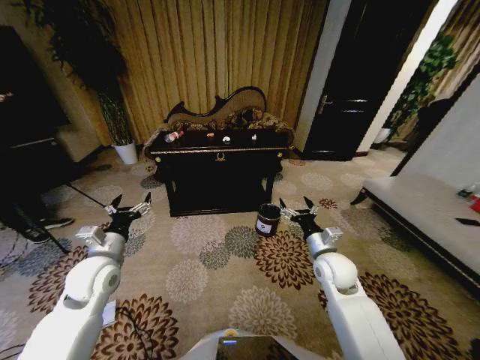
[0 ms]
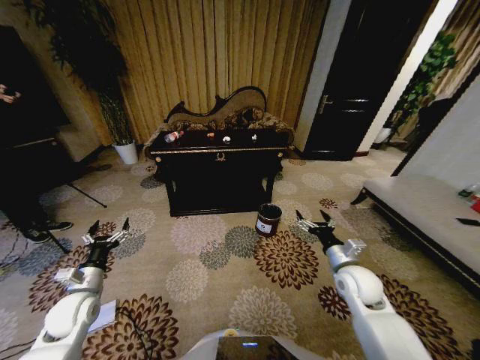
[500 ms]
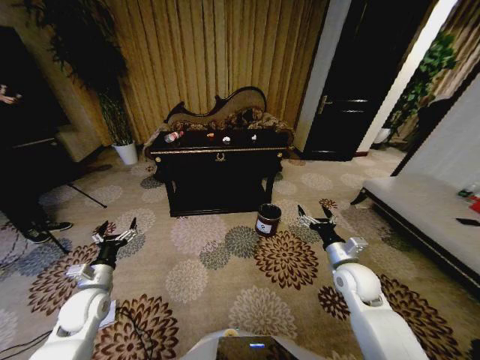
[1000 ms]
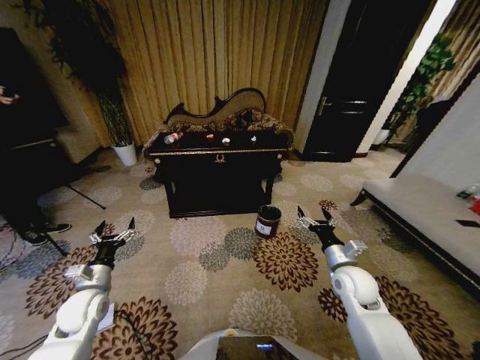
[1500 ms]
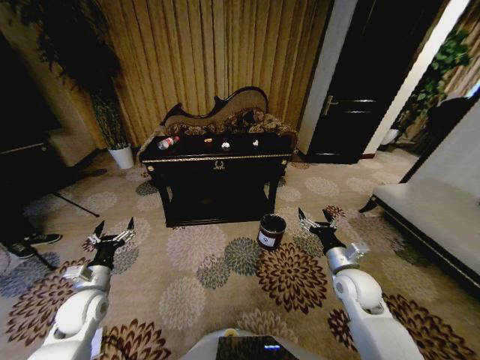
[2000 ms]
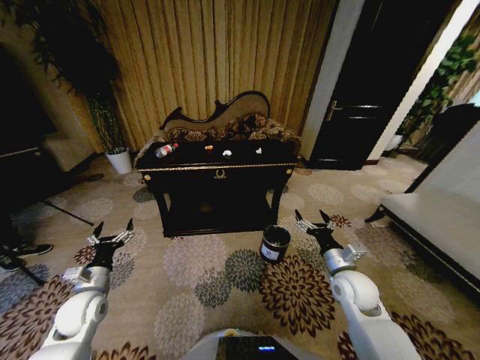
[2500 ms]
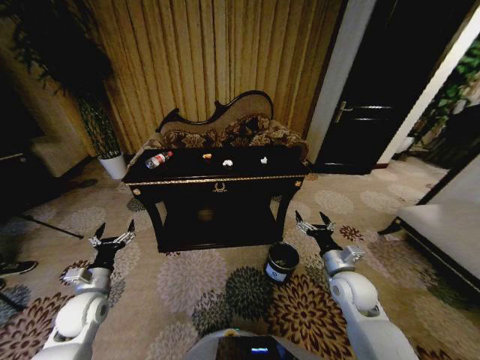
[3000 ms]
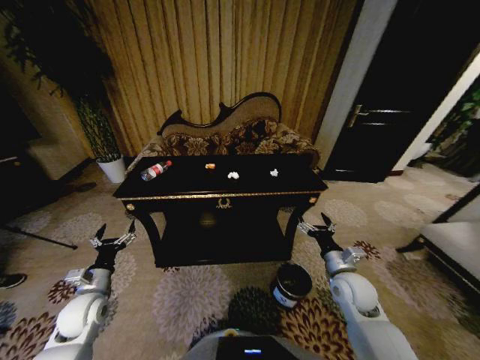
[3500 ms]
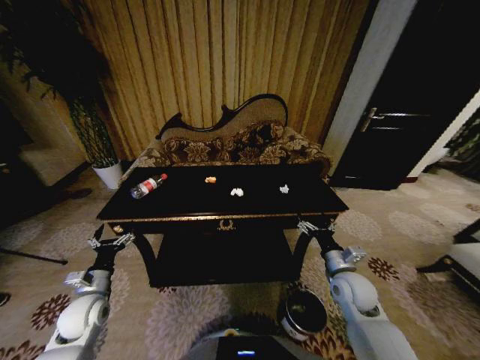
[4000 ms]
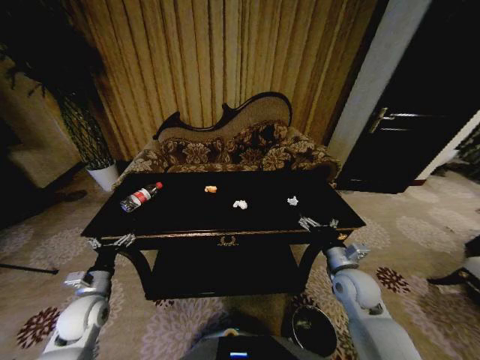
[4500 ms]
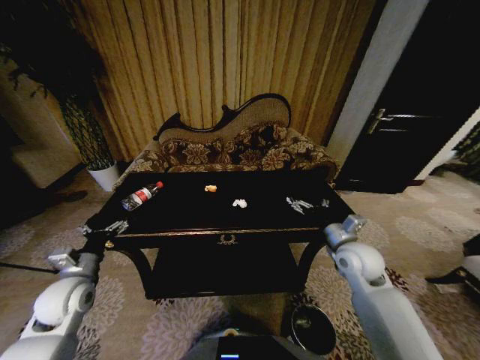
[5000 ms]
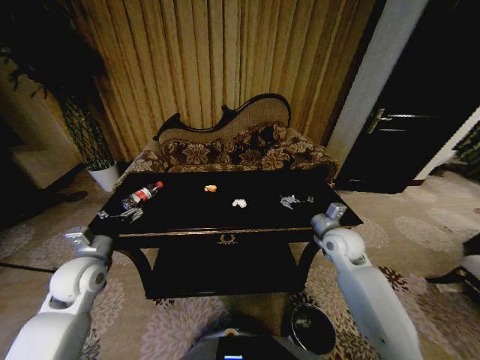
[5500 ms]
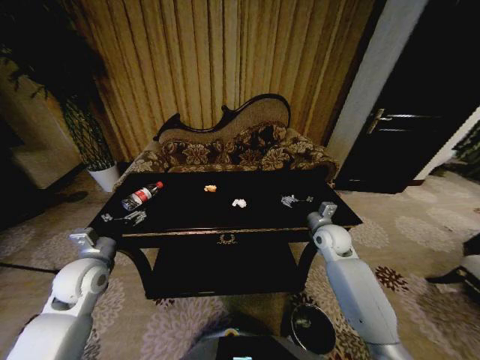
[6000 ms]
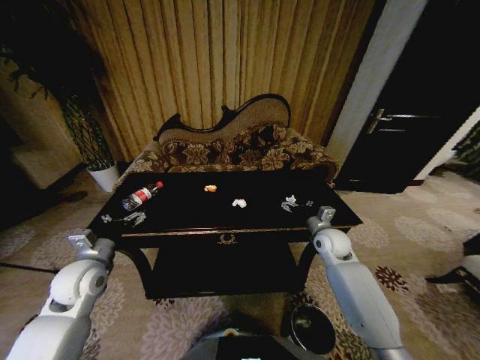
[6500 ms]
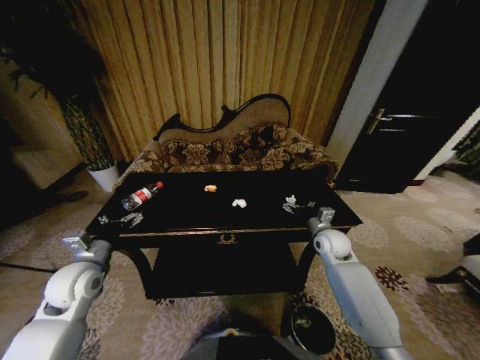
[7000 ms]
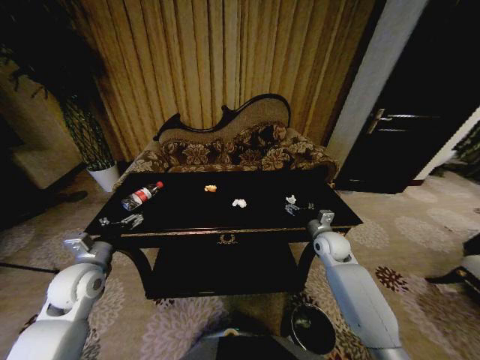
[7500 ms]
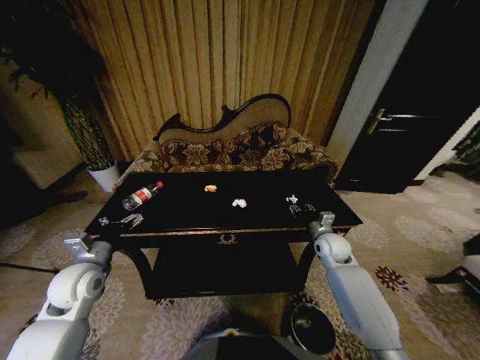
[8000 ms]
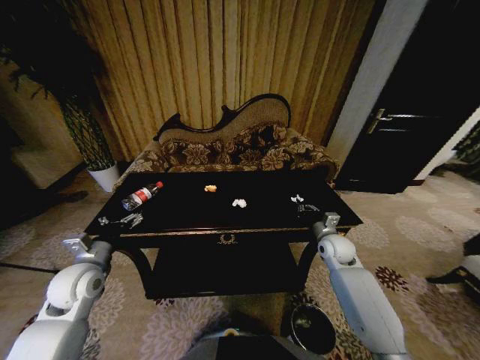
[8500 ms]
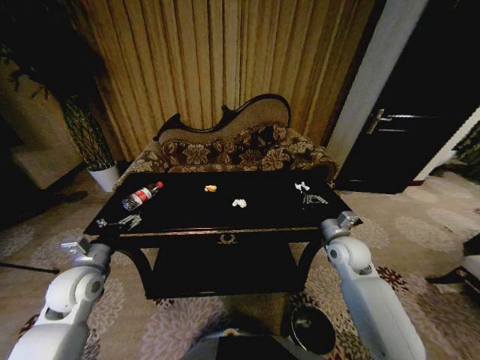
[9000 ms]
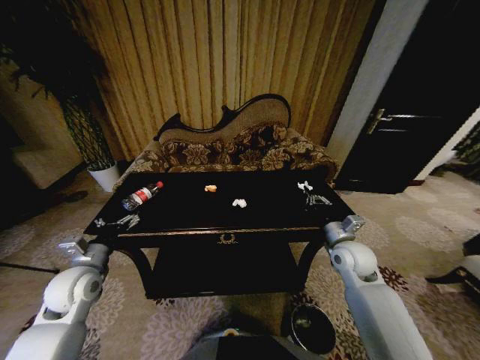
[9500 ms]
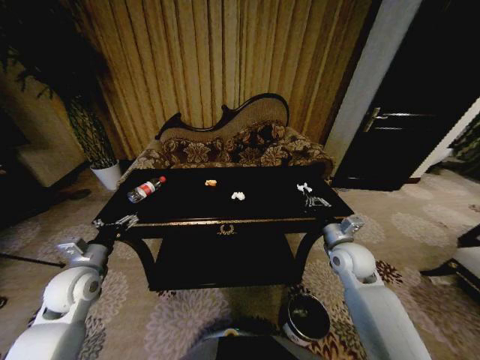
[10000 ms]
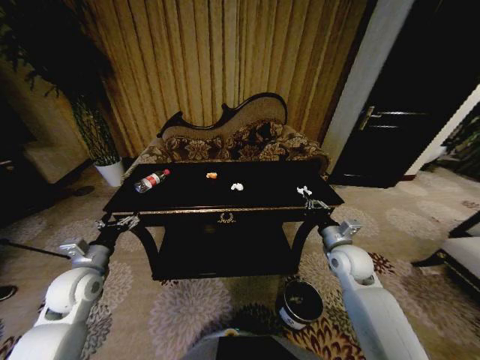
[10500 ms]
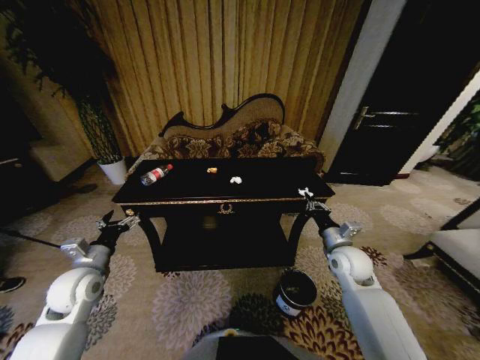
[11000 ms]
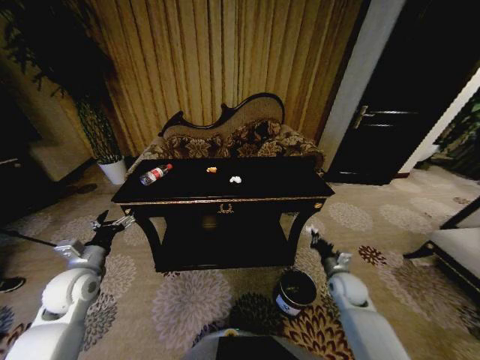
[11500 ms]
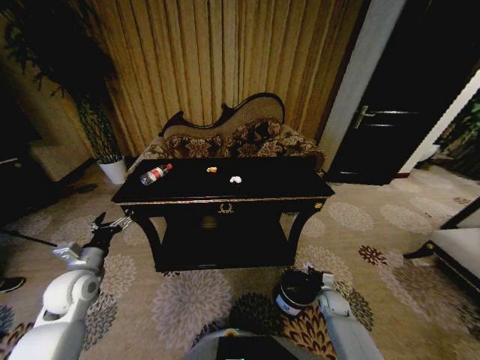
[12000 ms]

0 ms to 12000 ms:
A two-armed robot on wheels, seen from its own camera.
Task of the whole recording: Move to the front of the table and place the trash on the table into the trash bin.
4000 ms to 6000 ms: The right gripper travels forward by some 15 cm, while the left gripper is displaced upward and forward by some 10 cm.
6000 ms to 8000 ms: The right gripper closes its fingers.
8000 ms to 10000 ms: The right gripper travels backward and upward by about 10 cm, and closes.
10000 ms to 12000 ms: The right gripper moves downward, about 30 cm.

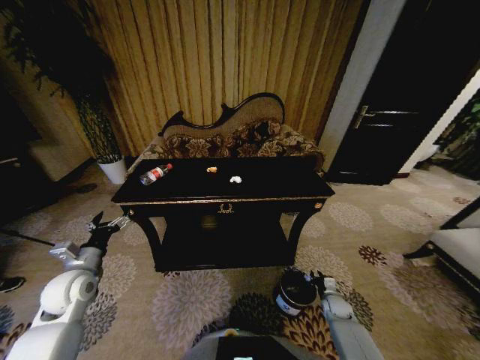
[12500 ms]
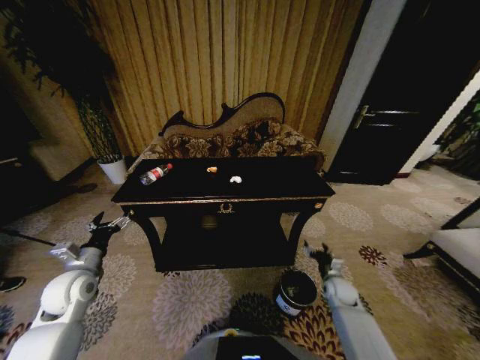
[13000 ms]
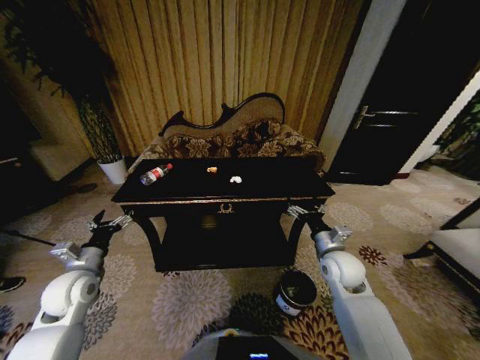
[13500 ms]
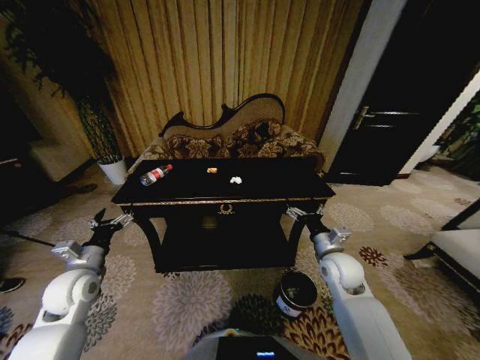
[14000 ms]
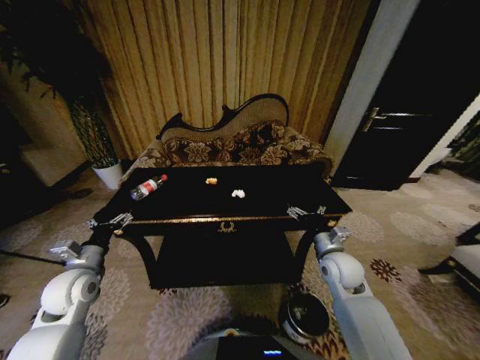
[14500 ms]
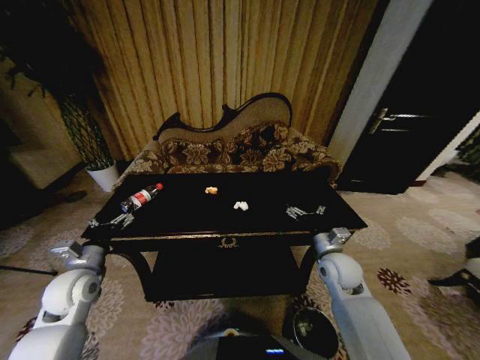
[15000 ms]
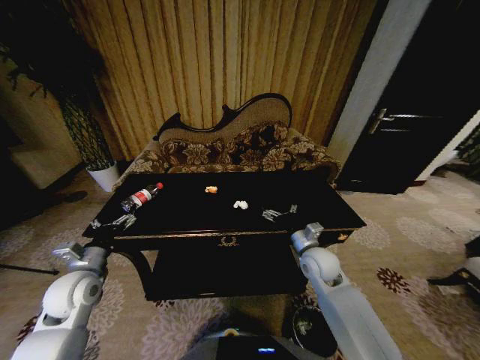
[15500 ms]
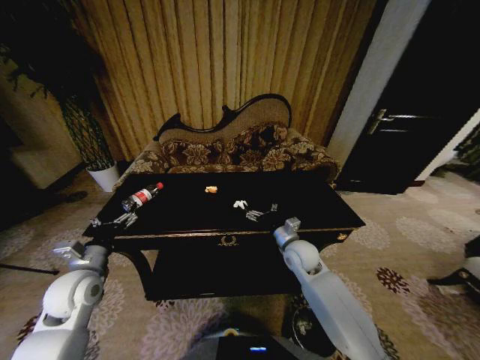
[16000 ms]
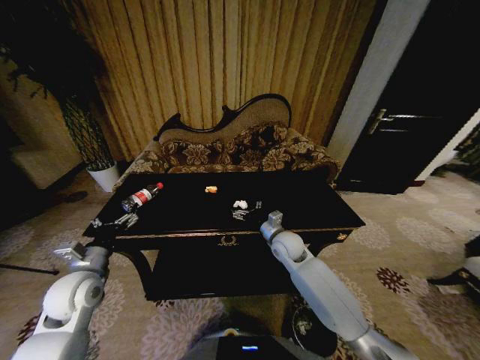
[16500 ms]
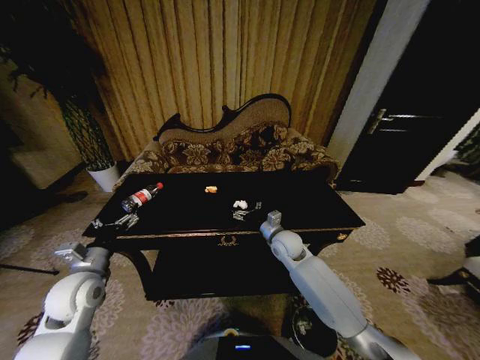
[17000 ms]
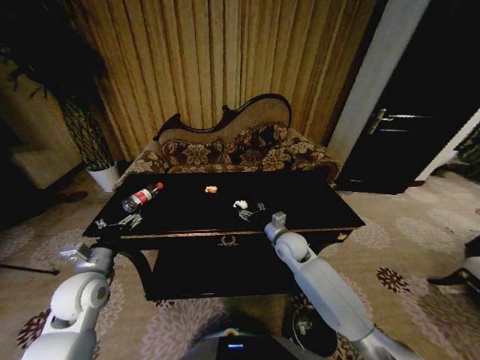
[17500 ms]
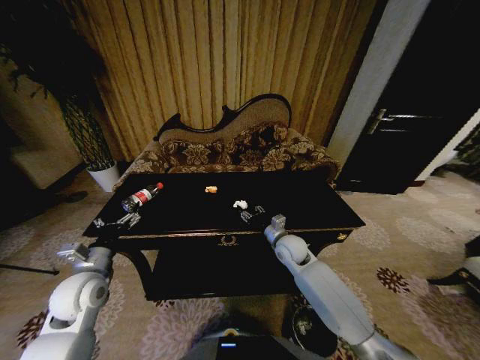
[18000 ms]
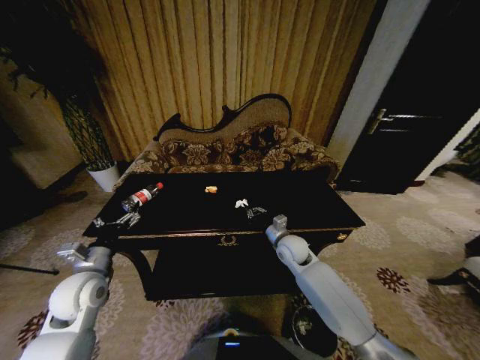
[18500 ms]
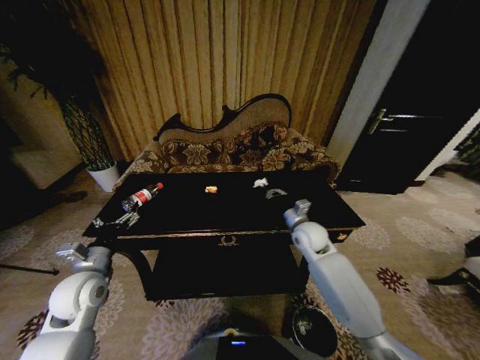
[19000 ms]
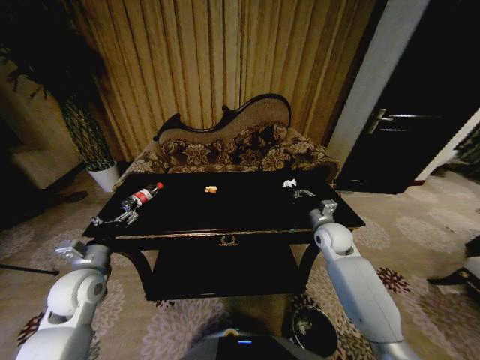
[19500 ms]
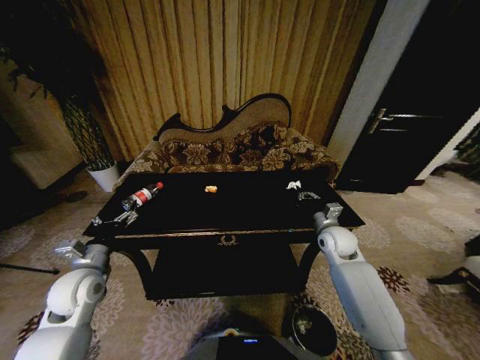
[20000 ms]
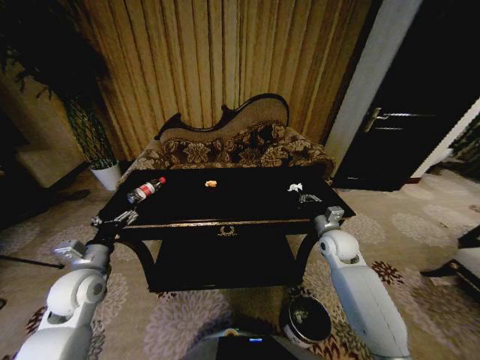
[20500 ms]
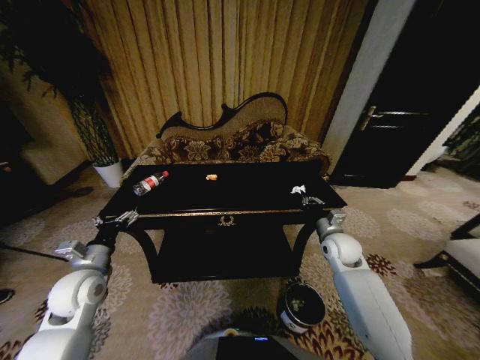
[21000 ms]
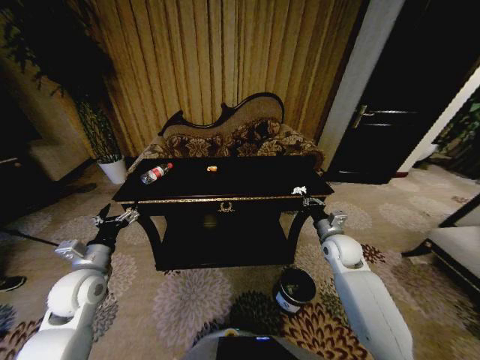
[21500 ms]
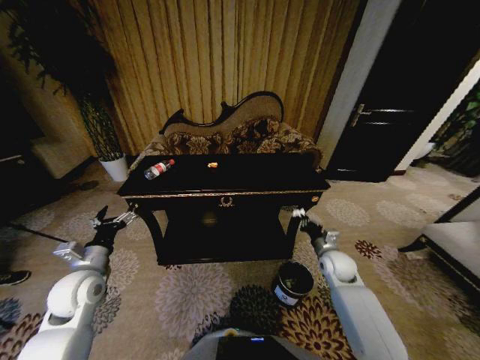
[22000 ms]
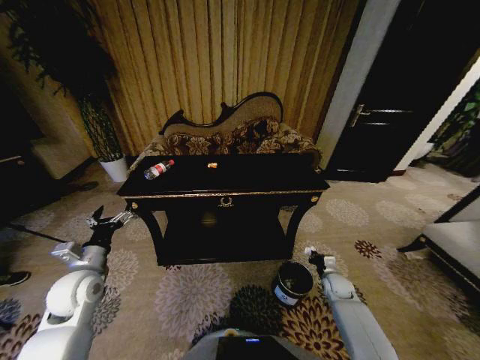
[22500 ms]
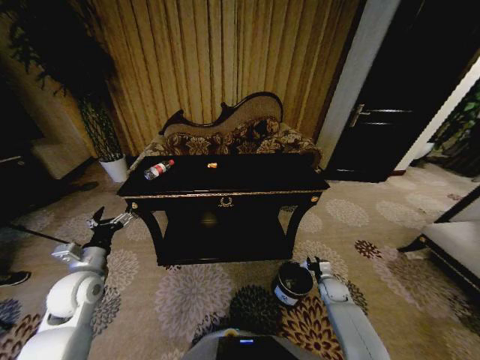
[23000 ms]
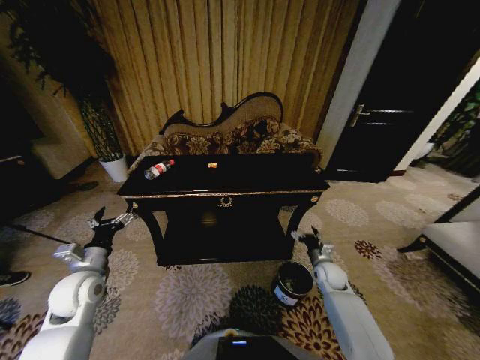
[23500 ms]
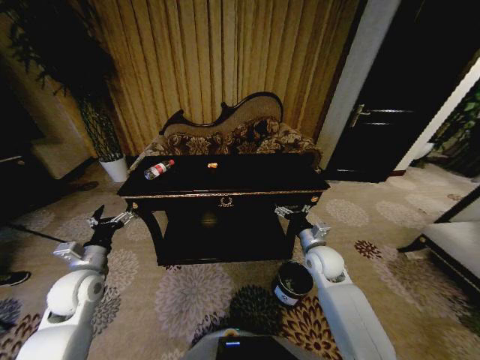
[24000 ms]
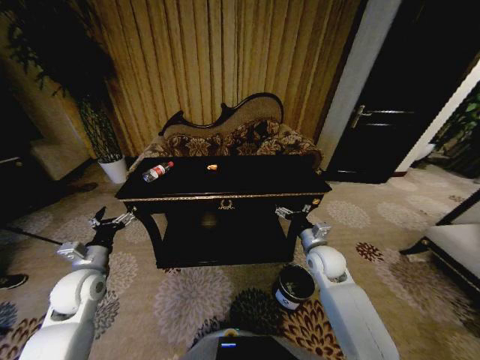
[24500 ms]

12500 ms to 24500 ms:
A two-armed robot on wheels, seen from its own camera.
Task of the whole recording: Move to the front of the table and place the trash on the table into the trash bin.
12500 ms to 14500 ms: The right gripper shifts approximately 30 cm upward, and opens up.
14500 ms to 16500 ms: The right gripper moves to the left and forward, some 15 cm.
16500 ms to 18500 ms: The right gripper closes.
18500 ms to 20500 ms: The right gripper moves to the right, roughly 15 cm.
20500 ms to 22500 ms: The right gripper shifts roughly 20 cm downward.
22500 ms to 24500 ms: The right gripper shifts approximately 20 cm upward and to the left, and opens its fingers.

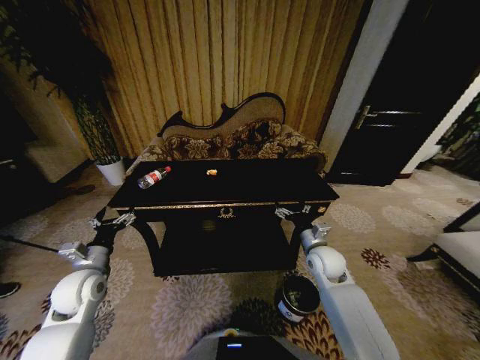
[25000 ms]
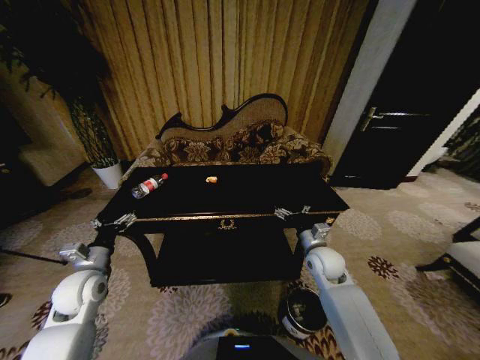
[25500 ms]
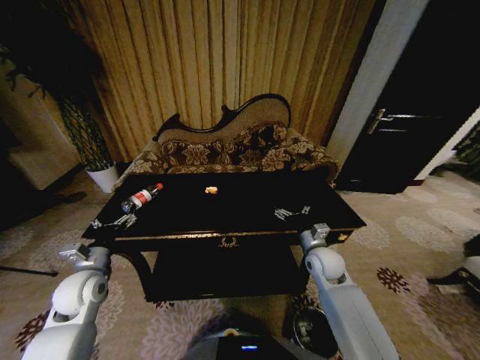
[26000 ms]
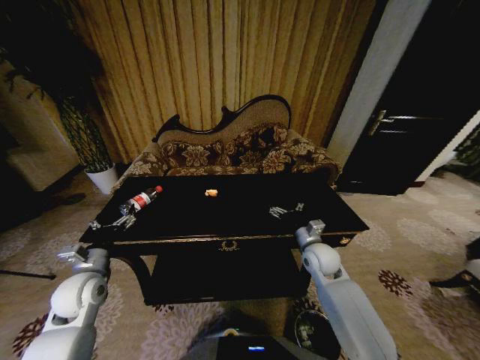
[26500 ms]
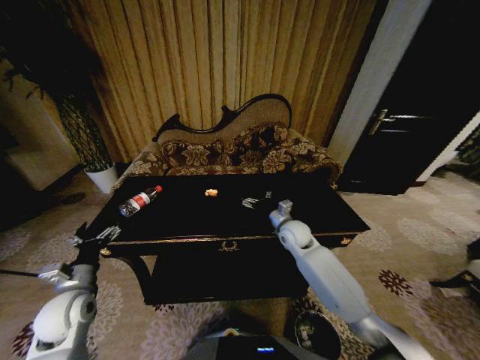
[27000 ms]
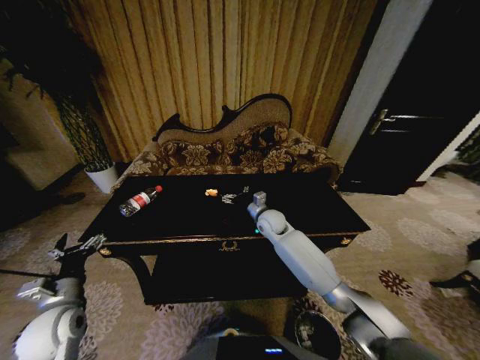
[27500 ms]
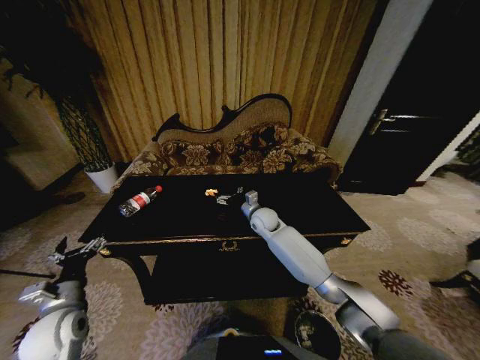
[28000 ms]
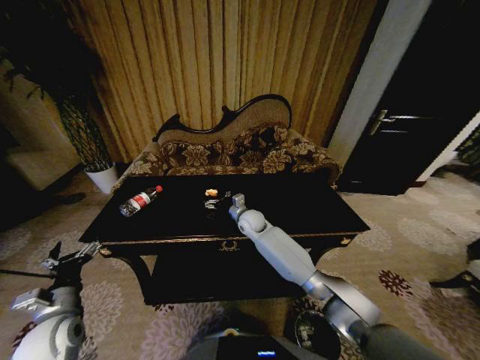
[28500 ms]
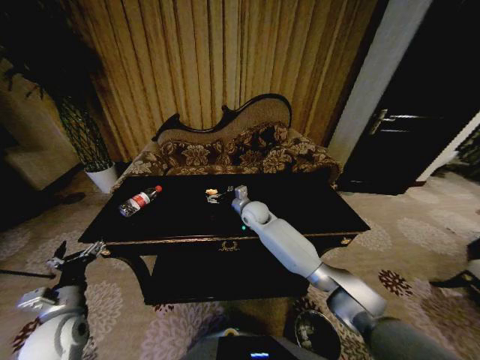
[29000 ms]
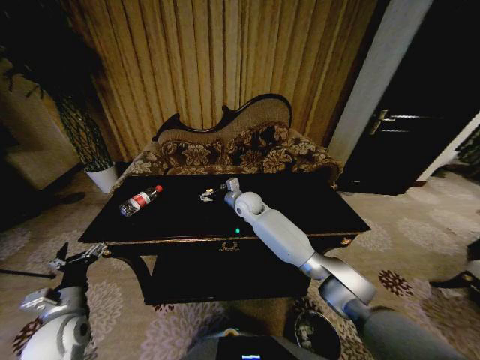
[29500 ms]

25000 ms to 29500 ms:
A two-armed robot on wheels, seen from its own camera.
Task of the whole recording: Move to the front of the table and place the trash on the table into the trash bin.
25000 ms to 27000 ms: The right gripper heads forward and to the left, covering some 10 cm.
27000 ms to 29500 ms: The right gripper moves to the left and forward, about 20 cm; the left gripper ends up roughly 5 cm from where it was.
